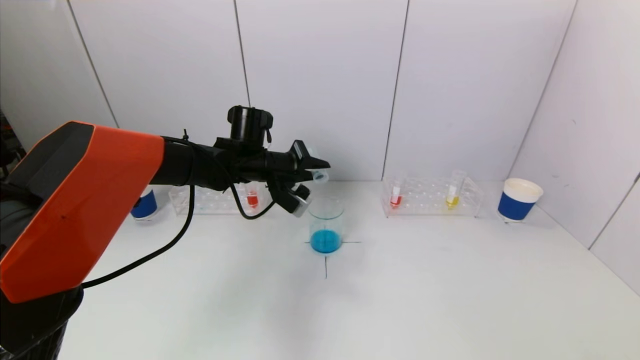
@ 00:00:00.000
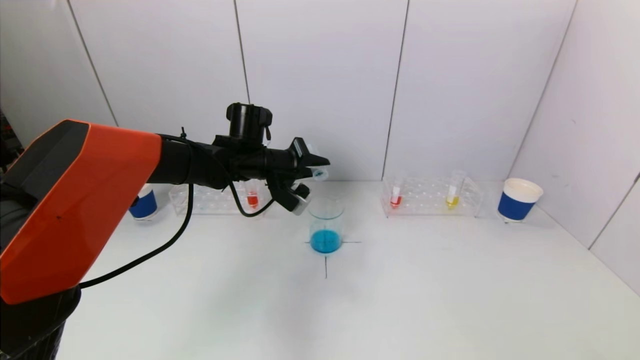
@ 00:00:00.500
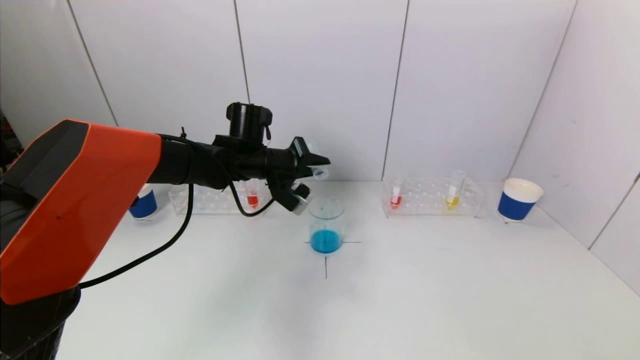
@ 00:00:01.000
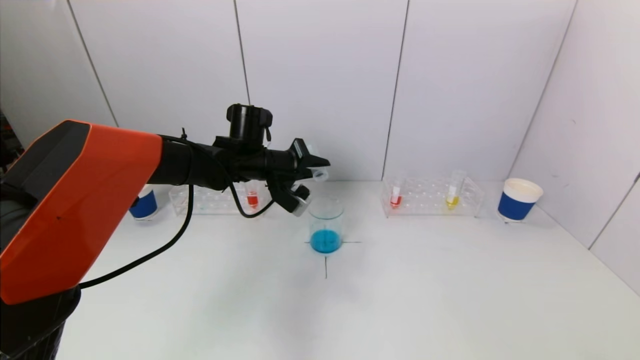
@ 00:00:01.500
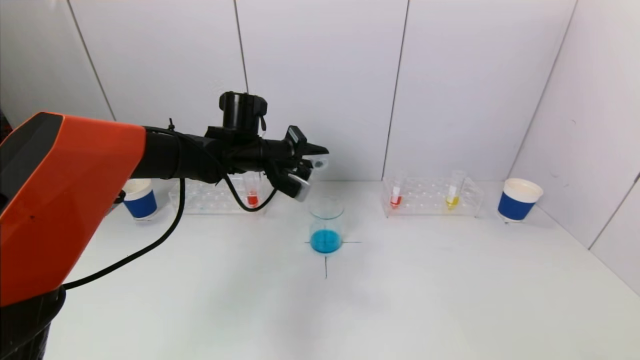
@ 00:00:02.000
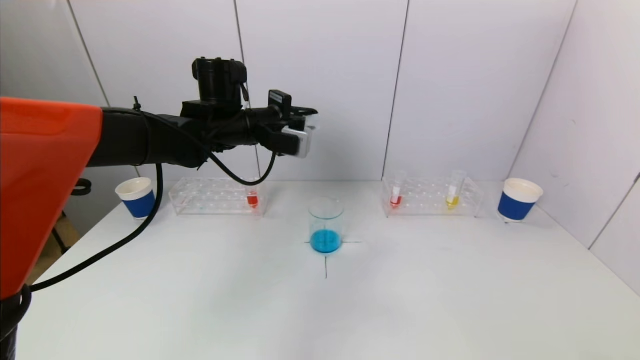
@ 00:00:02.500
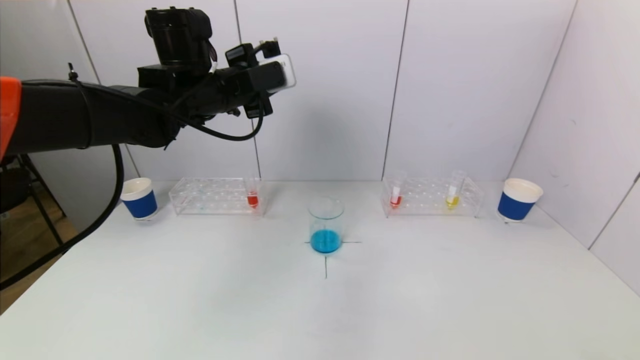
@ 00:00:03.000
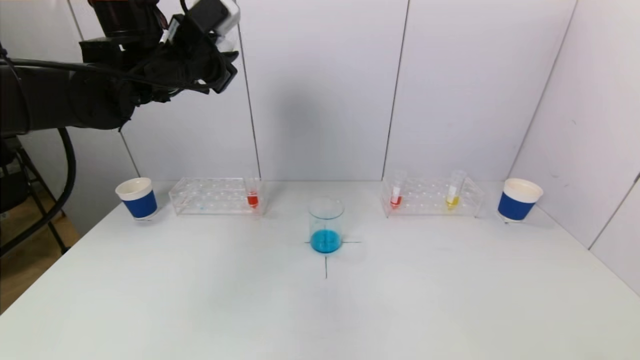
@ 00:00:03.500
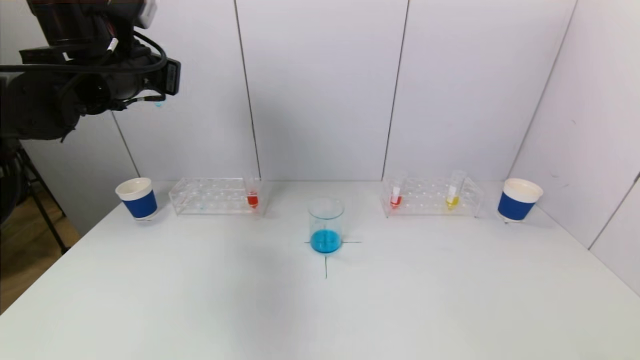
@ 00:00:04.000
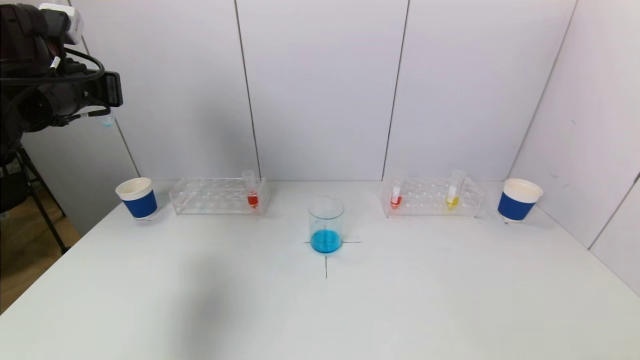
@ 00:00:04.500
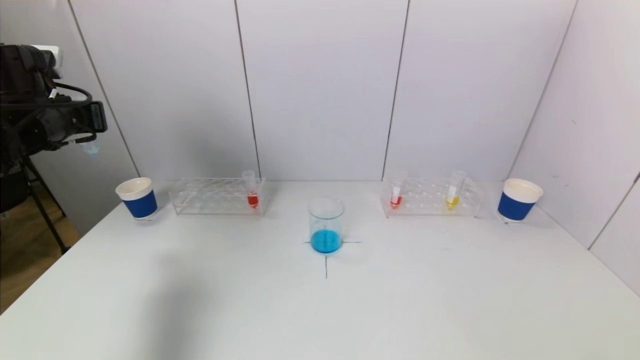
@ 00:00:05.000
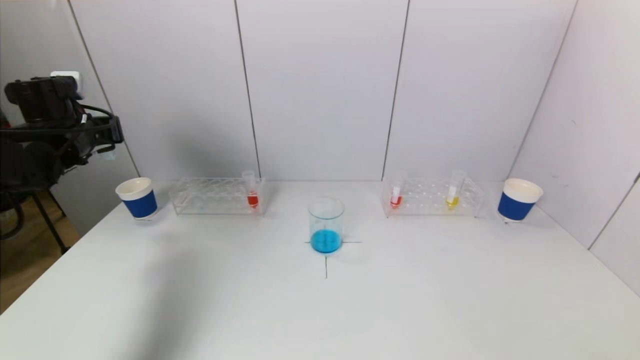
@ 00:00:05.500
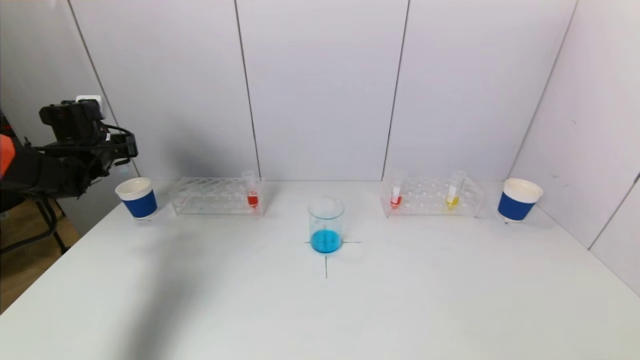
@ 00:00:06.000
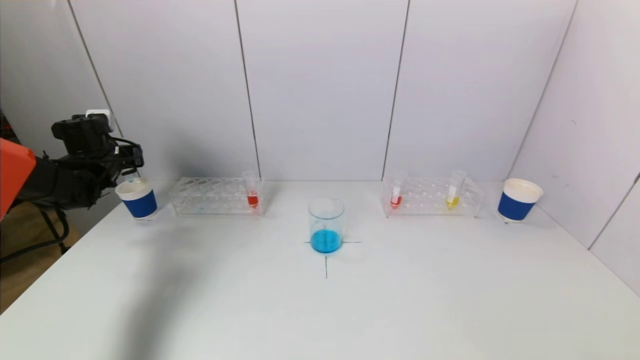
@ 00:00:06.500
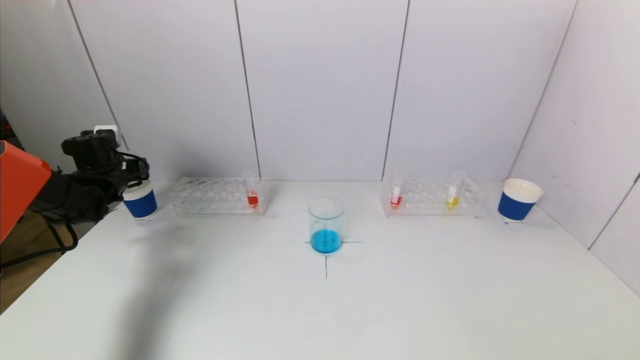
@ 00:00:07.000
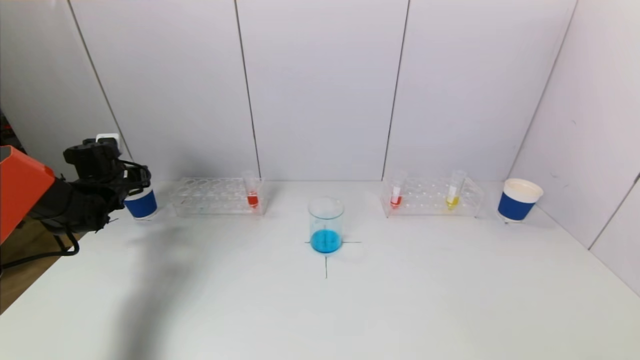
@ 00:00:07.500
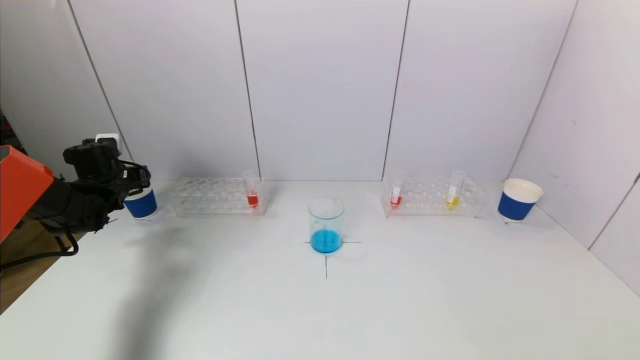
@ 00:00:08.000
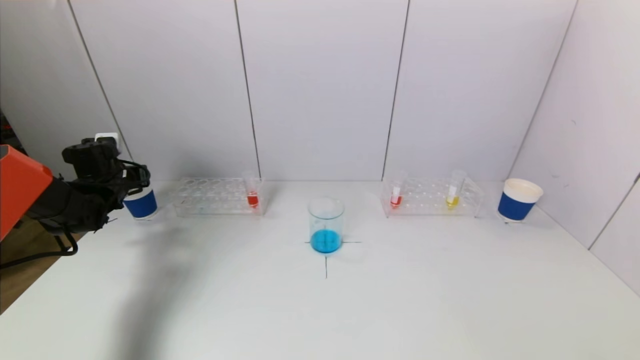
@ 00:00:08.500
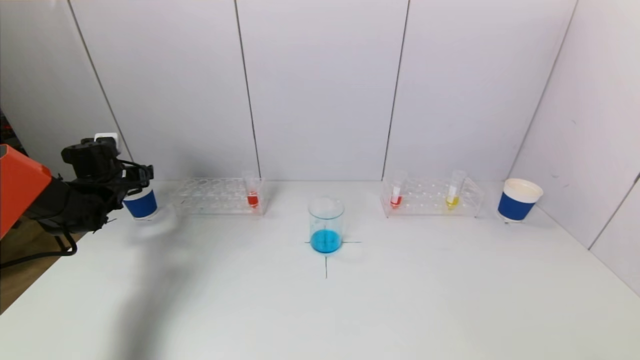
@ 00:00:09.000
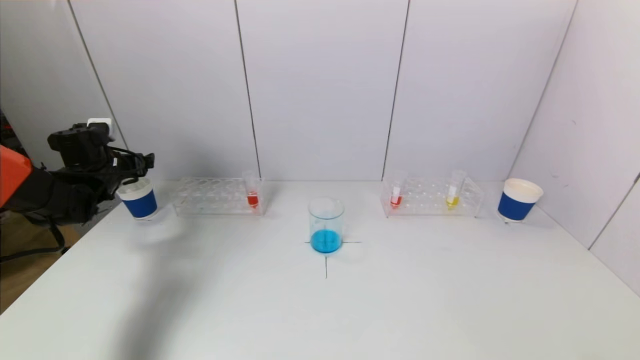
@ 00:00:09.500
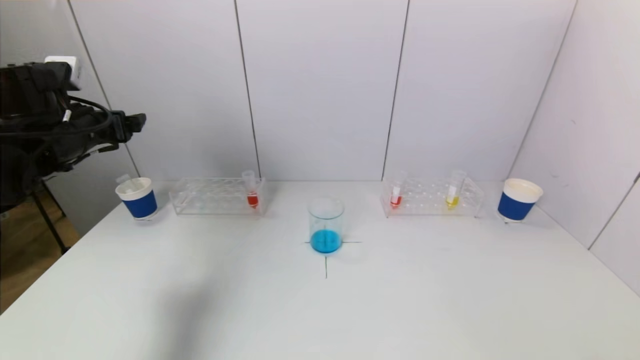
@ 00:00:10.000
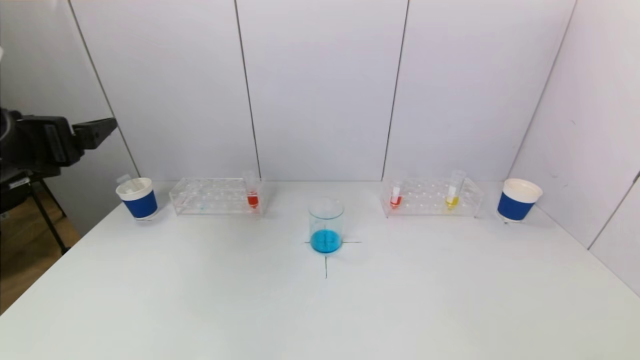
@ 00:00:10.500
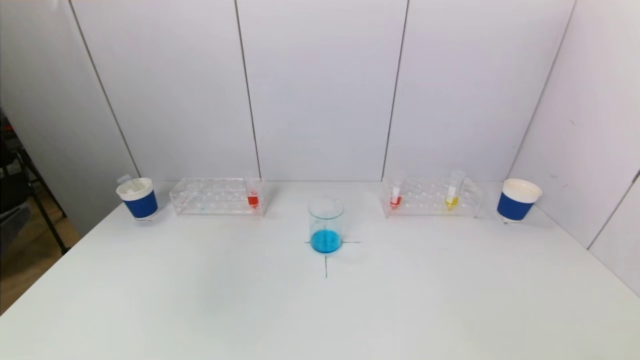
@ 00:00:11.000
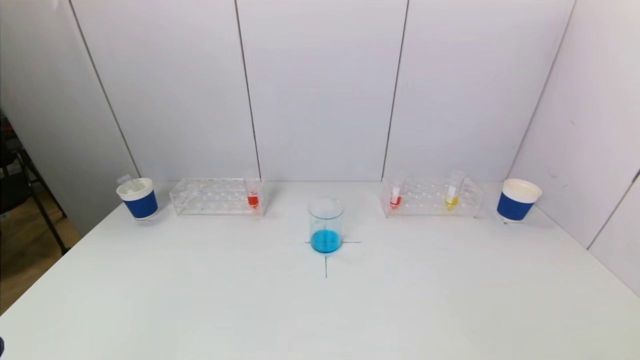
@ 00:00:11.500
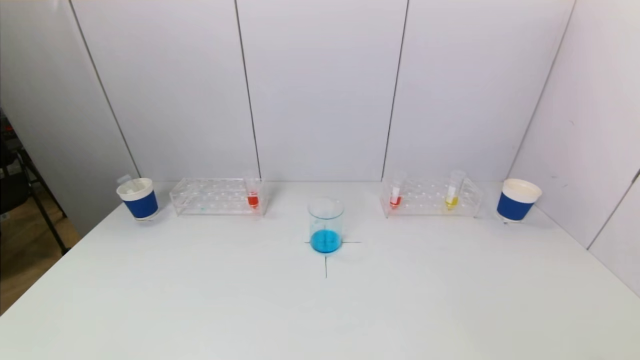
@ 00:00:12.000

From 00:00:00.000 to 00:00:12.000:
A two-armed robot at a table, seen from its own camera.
Task of the whole recording: pick up a test tube with pigment on left test tube rack and a test tube with pigment on right test tube rack by grippers and pour them into the beaker.
Step, from 00:00:00.000 to 00:00:09.500: Place the test tube into the paper cup with the left gripper.
From 00:00:00.000 to 00:00:02.000: There are only small adjustments of the grippers.
From 00:00:02.000 to 00:00:04.000: The left gripper travels to the left, upward and backward by about 20 cm.
From 00:00:04.000 to 00:00:06.000: The left gripper is displaced downward, to the left and forward by about 20 cm.
From 00:00:06.000 to 00:00:08.000: The left gripper is displaced downward by about 5 cm.
From 00:00:08.000 to 00:00:10.000: The left gripper shifts some 20 cm upward, backward and to the right, and opens.
From 00:00:10.000 to 00:00:12.000: The left gripper heads backward and downward, covering approximately 40 cm.

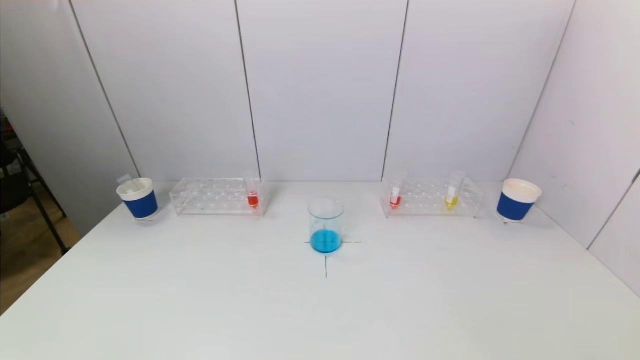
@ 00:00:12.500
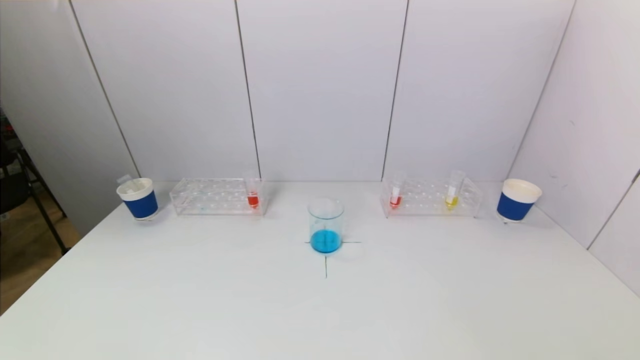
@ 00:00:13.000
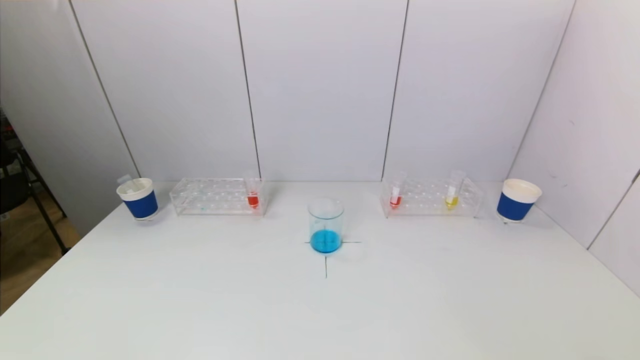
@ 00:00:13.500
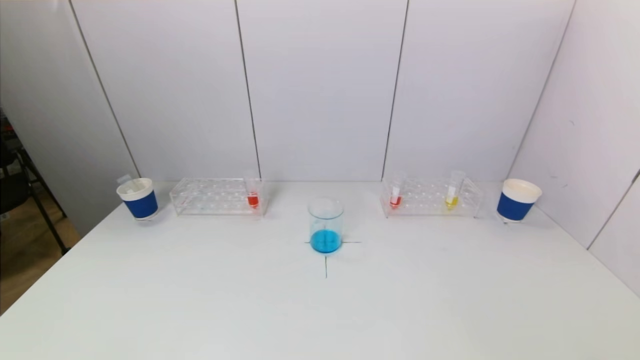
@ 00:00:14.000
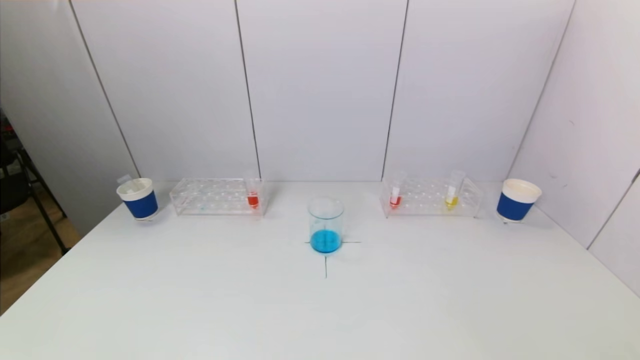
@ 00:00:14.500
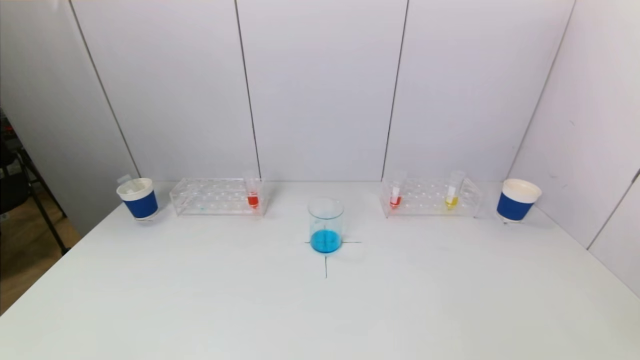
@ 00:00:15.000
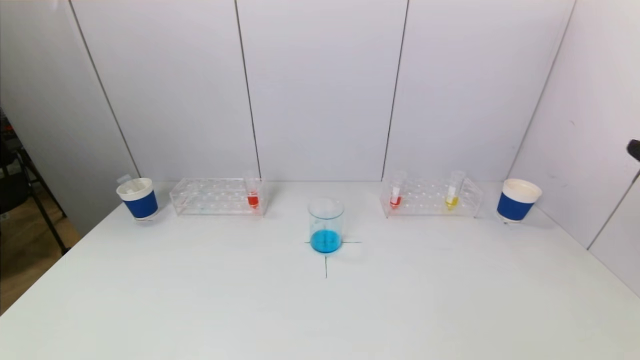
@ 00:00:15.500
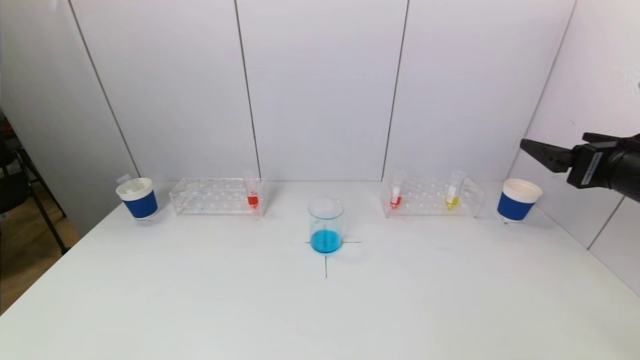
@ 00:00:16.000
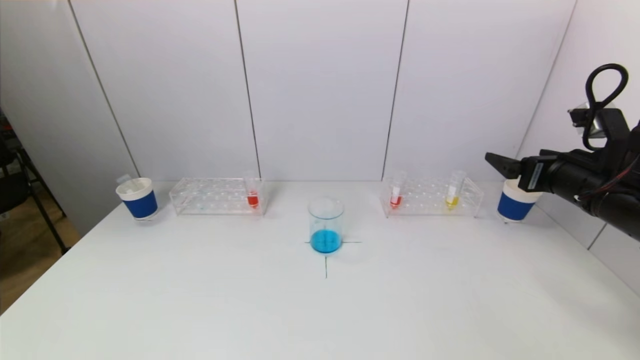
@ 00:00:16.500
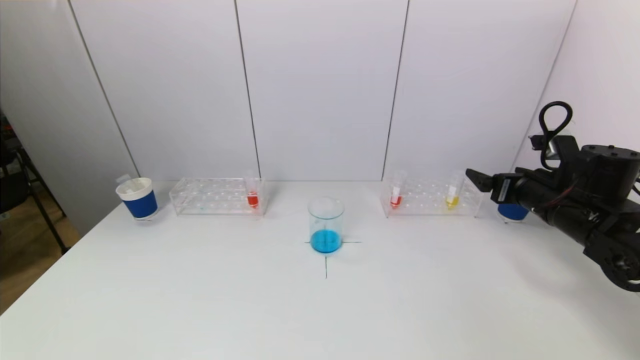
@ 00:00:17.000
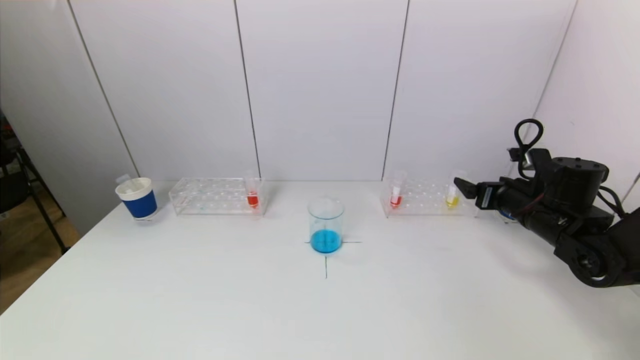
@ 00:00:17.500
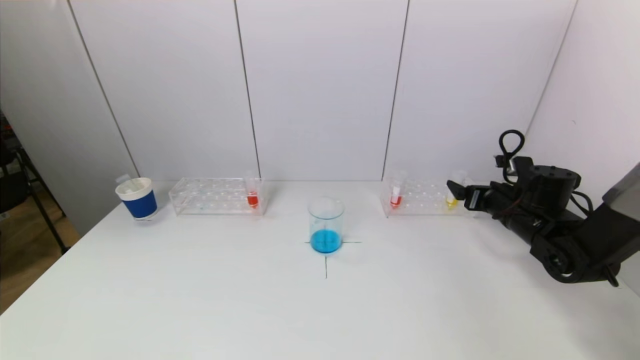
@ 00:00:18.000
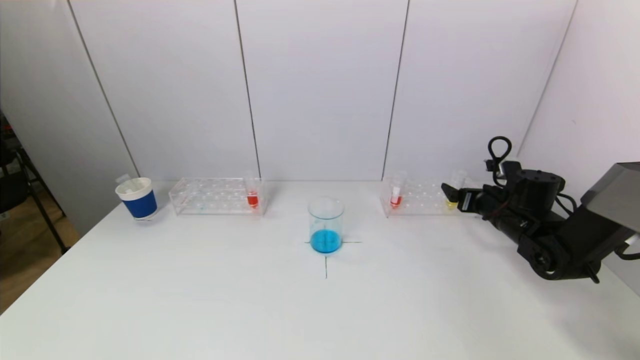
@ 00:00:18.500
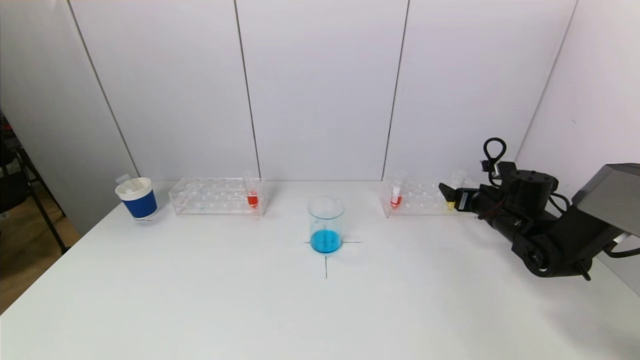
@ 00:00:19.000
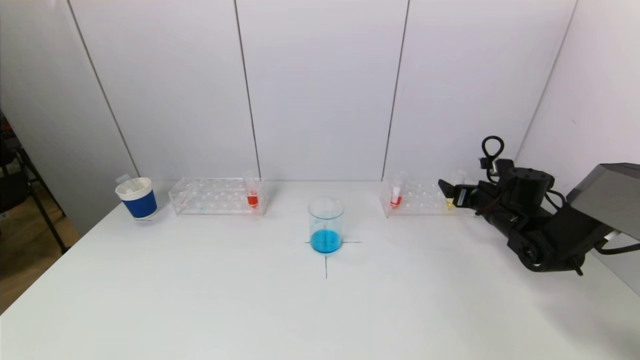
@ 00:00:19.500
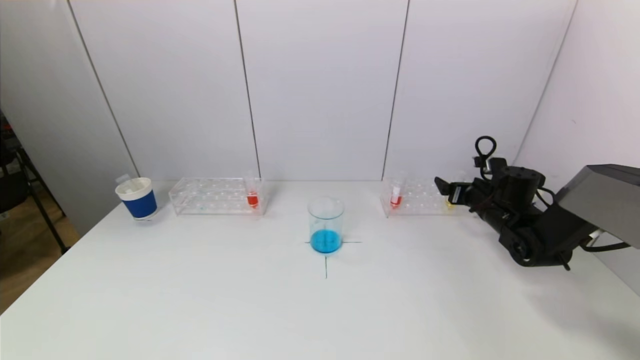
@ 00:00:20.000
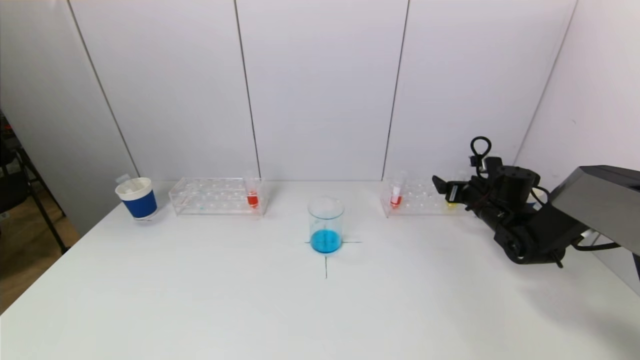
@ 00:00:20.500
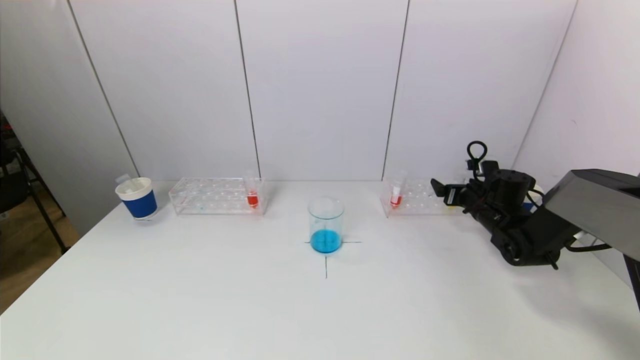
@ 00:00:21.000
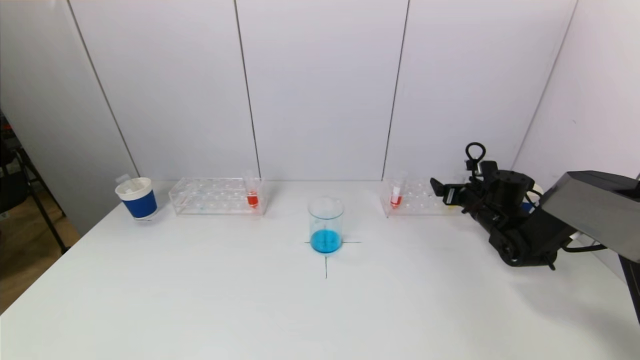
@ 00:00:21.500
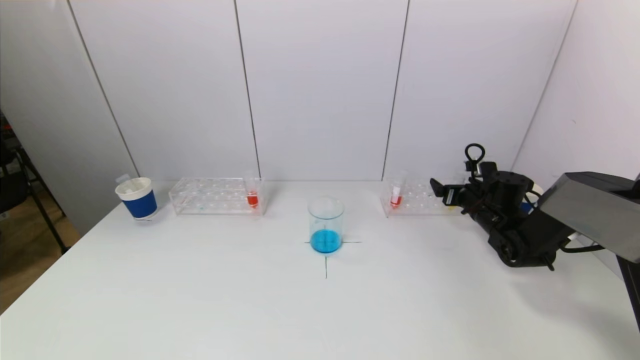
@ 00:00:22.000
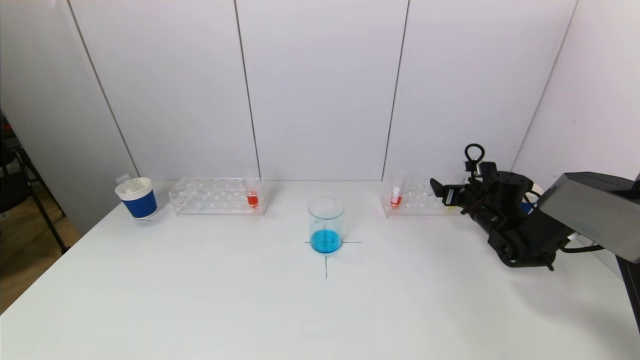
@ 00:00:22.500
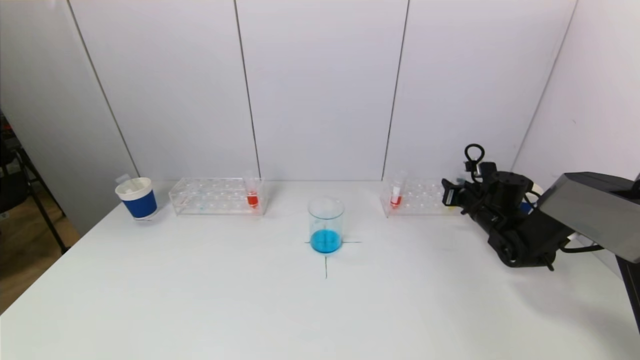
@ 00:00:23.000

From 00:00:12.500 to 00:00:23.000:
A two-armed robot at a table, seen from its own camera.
Task of the whole recording: pick up a test tube with pigment on left test tube rack and a test tube with pigment on right test tube rack by grippers and pour them into the beaker.
From 00:00:14.500 to 00:00:16.500: The right gripper goes roughly 30 cm forward.
From 00:00:16.500 to 00:00:19.000: The right gripper goes some 20 cm downward and forward.
From 00:00:19.000 to 00:00:21.000: The grippers make only small movements.
From 00:00:21.000 to 00:00:23.000: The right gripper closes.
